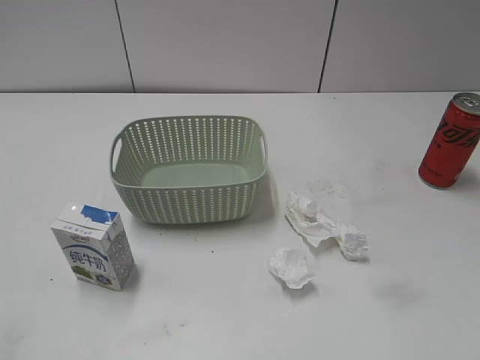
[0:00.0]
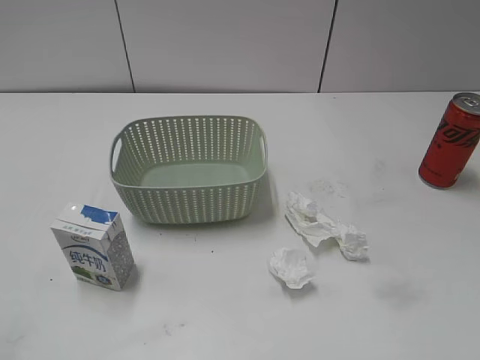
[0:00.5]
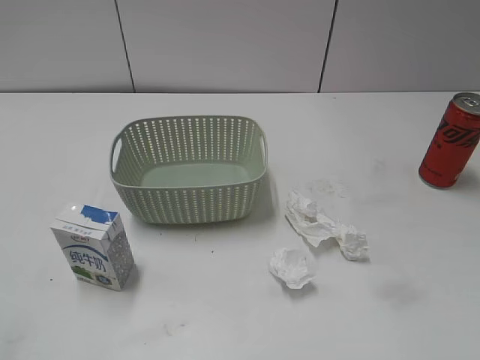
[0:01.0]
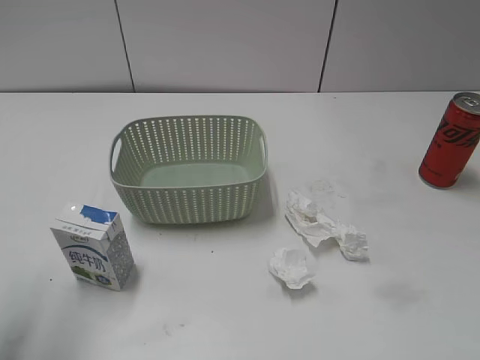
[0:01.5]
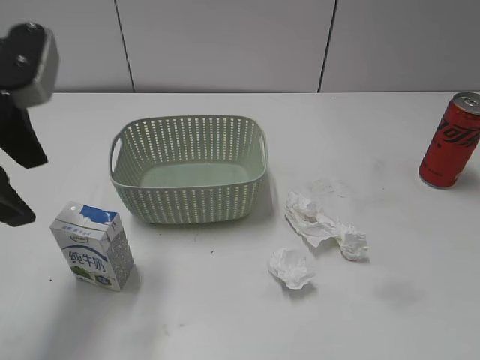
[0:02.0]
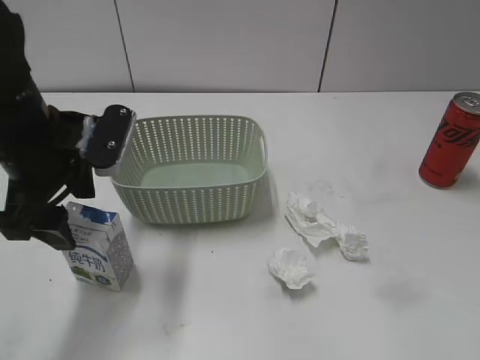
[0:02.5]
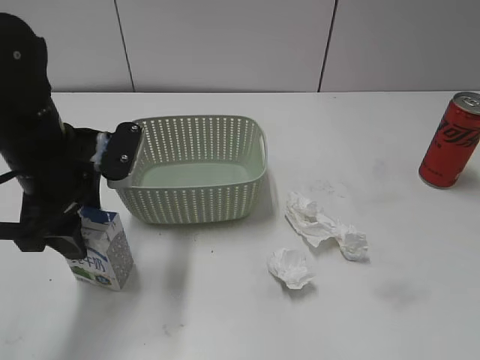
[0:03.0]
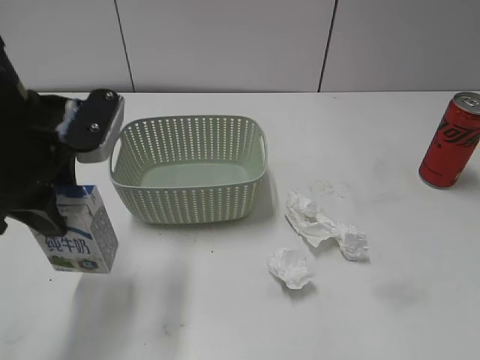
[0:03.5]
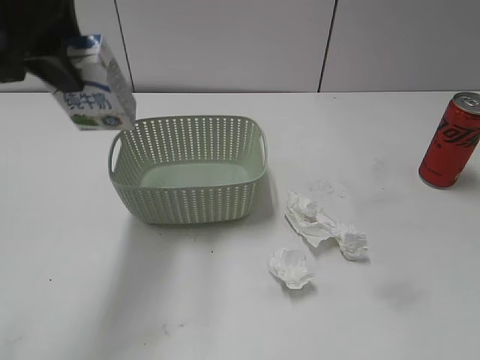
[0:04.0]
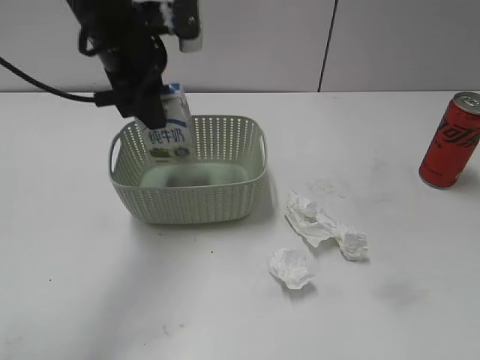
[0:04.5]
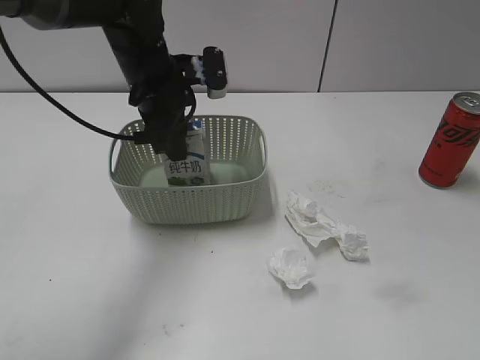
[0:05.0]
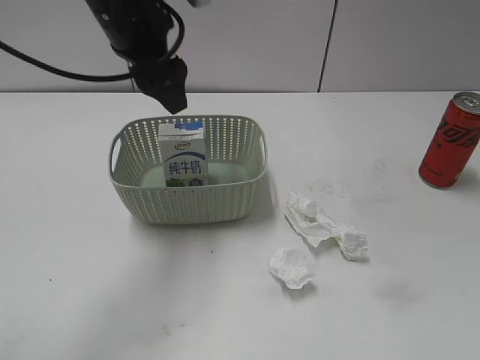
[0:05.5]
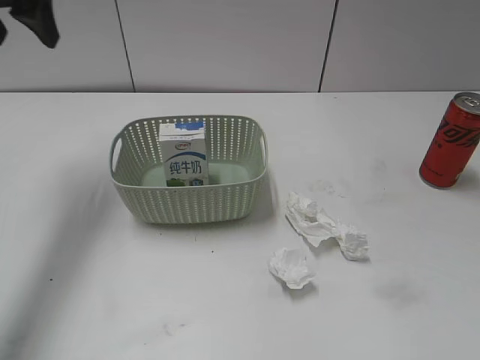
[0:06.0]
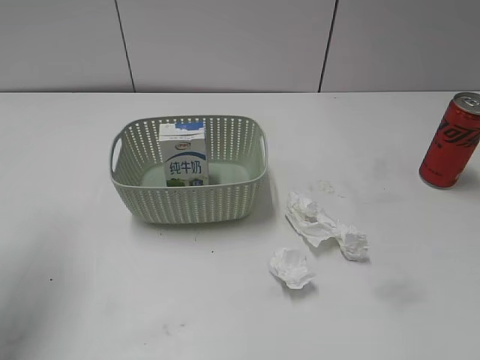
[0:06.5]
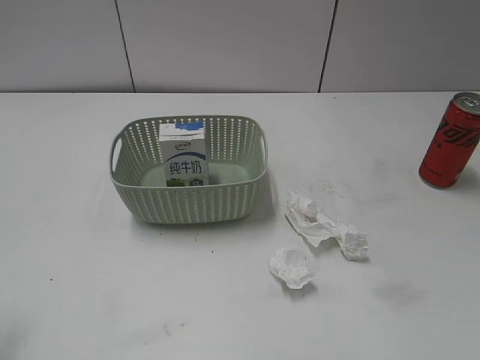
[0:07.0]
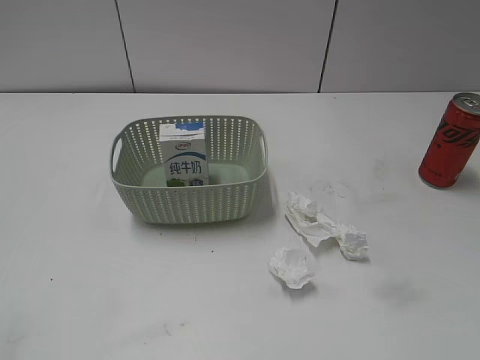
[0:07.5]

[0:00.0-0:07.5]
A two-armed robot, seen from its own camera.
Step, 0:02.0 to 0:03.0: Grasp the milk with left gripper.
Step, 0:03.5 to 0:05.5: Place the milk in the basket with left gripper.
0:02.0 to 0:04.0: The left gripper goes roughly 10 cm upward and forward, and closes its fingers.
0:04.0 to 0:05.5: The left gripper is displaced forward, to the right and downward by about 10 cm, and opens its fingers.
0:05.5 to 0:07.5: The left gripper travels backward and to the left by roughly 40 cm.
